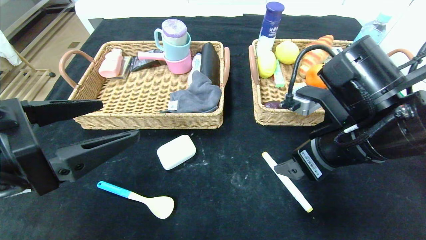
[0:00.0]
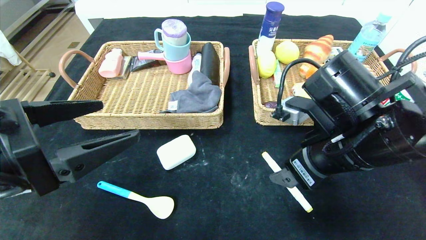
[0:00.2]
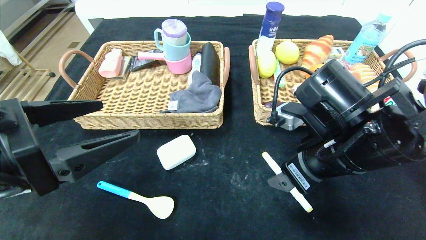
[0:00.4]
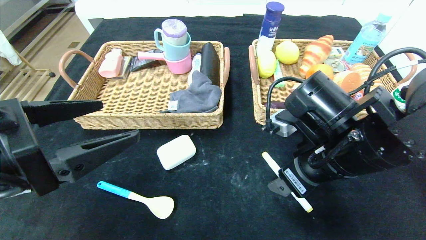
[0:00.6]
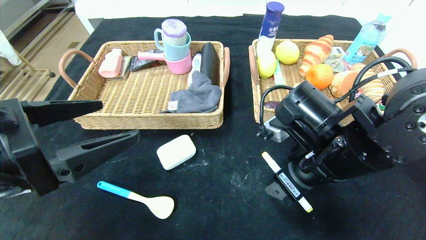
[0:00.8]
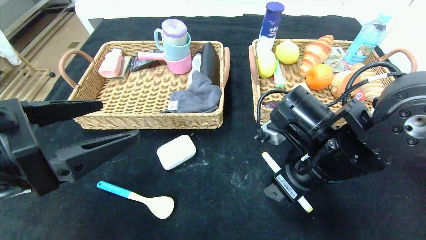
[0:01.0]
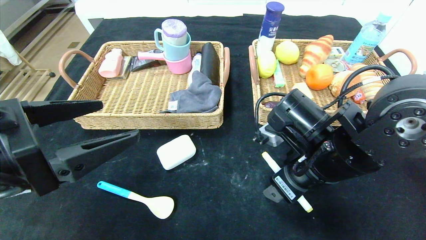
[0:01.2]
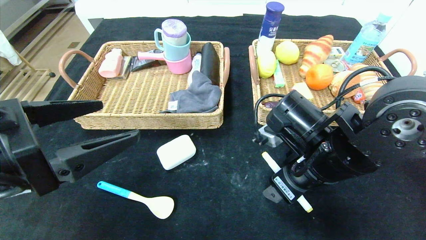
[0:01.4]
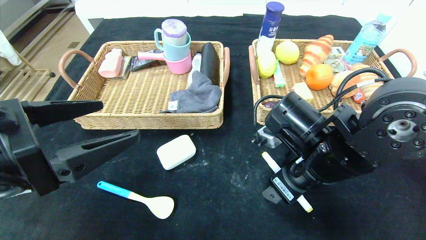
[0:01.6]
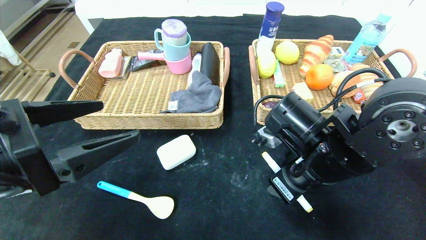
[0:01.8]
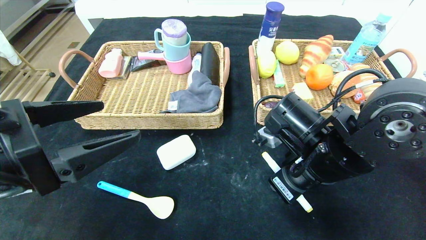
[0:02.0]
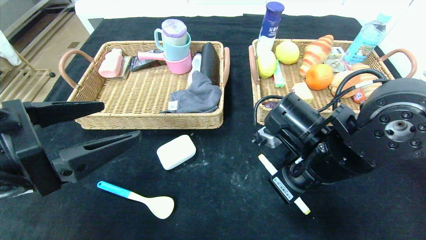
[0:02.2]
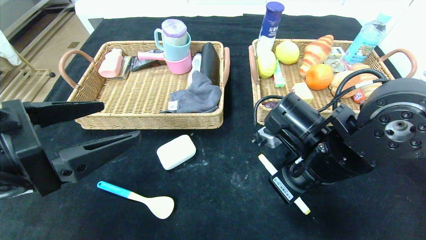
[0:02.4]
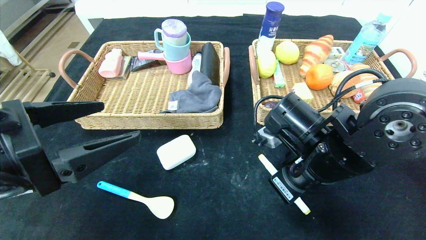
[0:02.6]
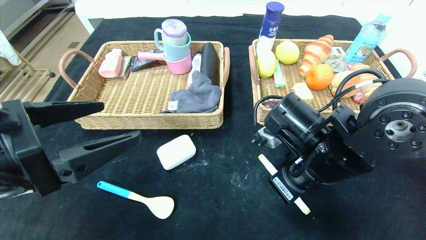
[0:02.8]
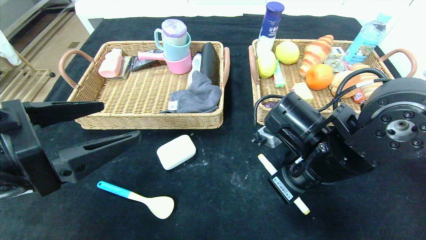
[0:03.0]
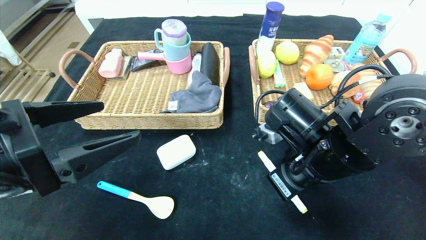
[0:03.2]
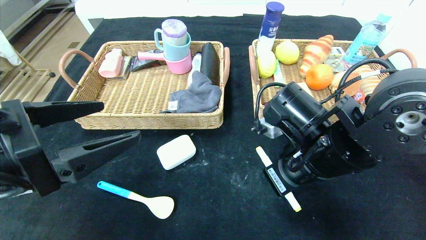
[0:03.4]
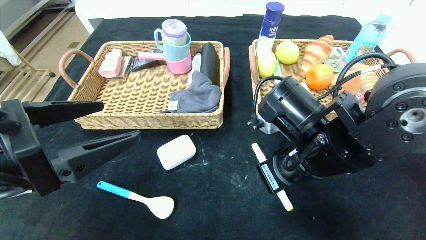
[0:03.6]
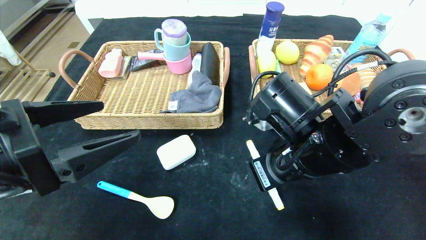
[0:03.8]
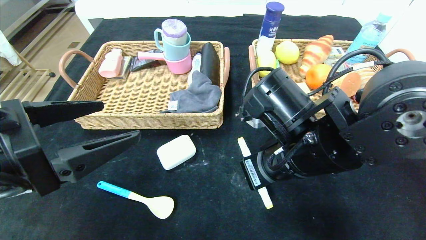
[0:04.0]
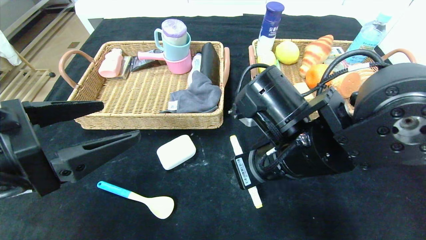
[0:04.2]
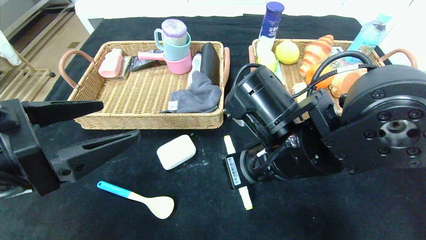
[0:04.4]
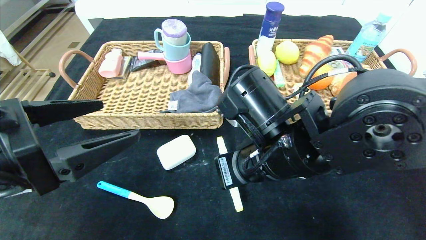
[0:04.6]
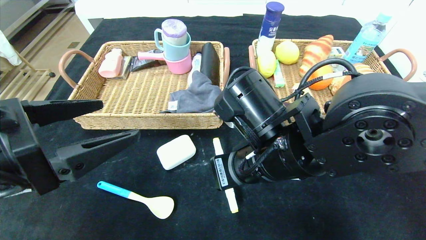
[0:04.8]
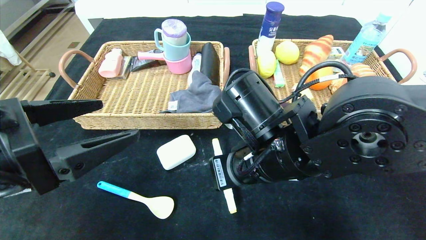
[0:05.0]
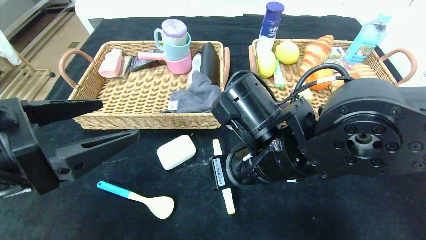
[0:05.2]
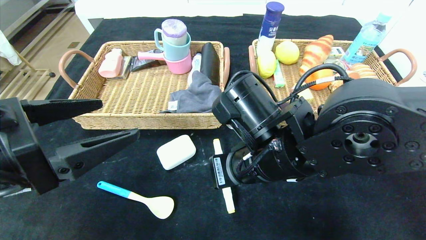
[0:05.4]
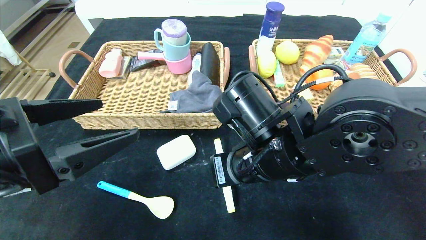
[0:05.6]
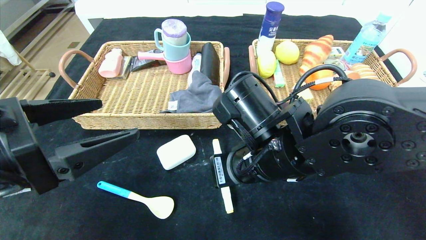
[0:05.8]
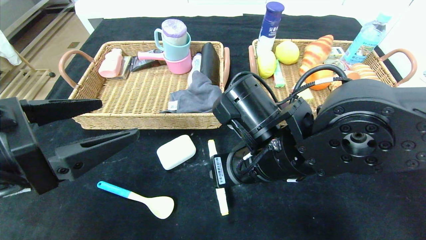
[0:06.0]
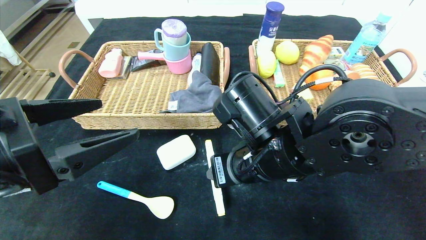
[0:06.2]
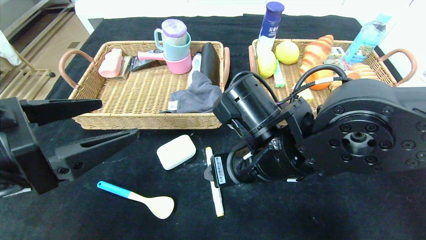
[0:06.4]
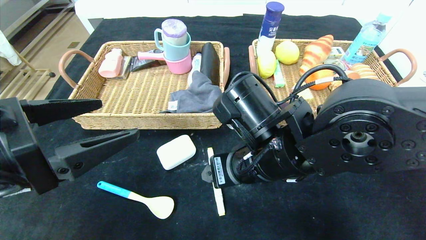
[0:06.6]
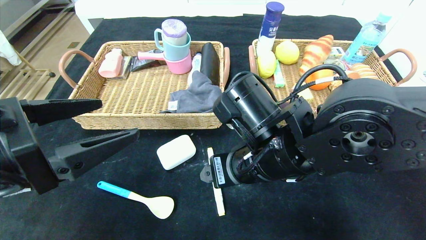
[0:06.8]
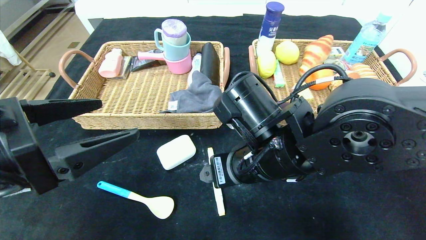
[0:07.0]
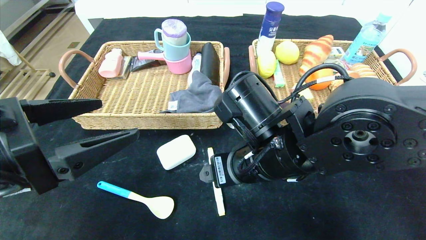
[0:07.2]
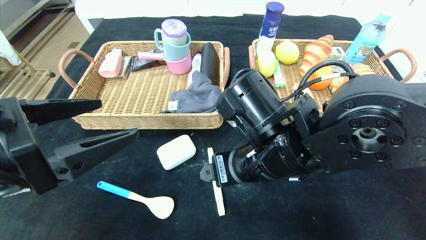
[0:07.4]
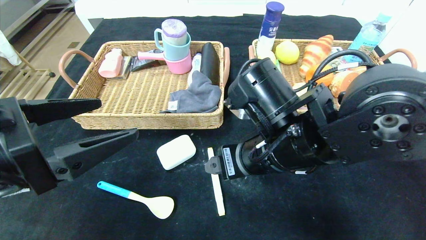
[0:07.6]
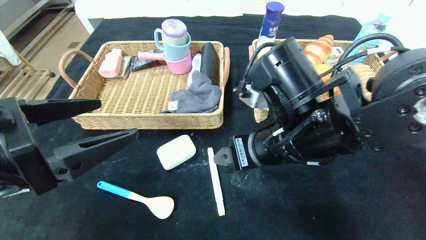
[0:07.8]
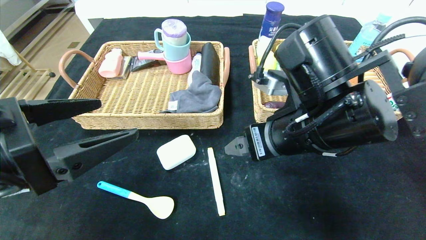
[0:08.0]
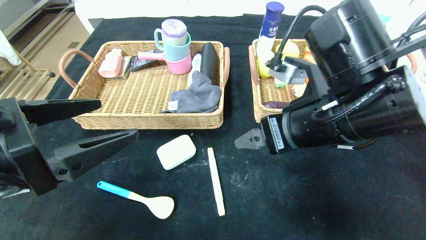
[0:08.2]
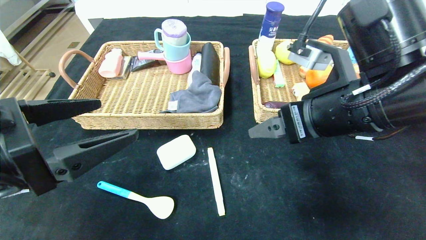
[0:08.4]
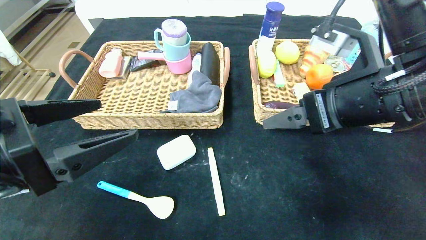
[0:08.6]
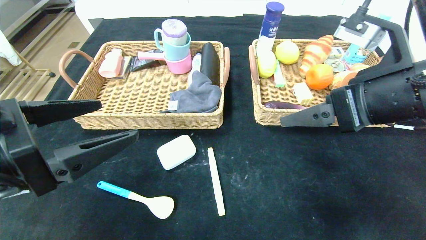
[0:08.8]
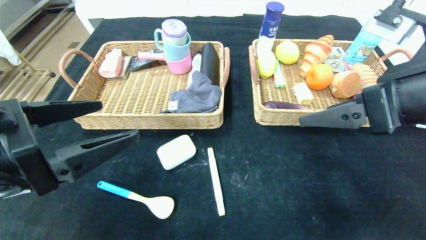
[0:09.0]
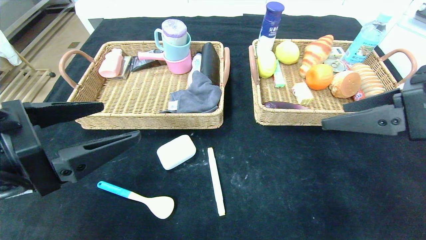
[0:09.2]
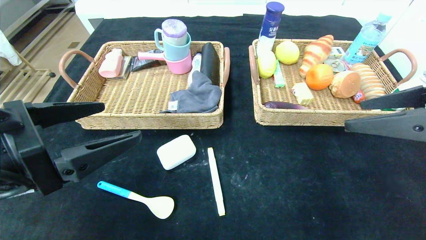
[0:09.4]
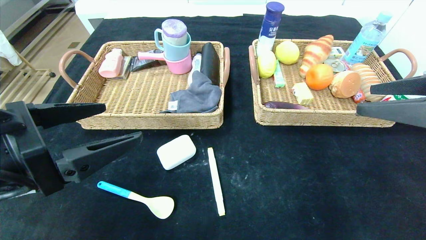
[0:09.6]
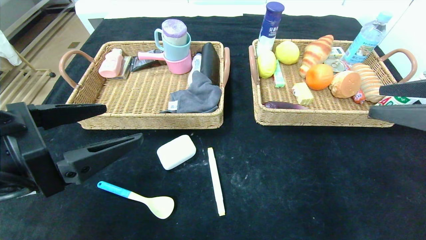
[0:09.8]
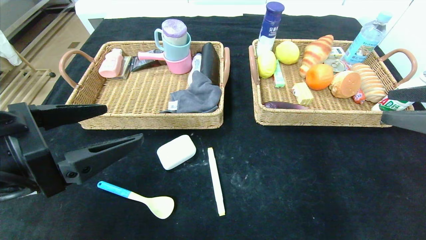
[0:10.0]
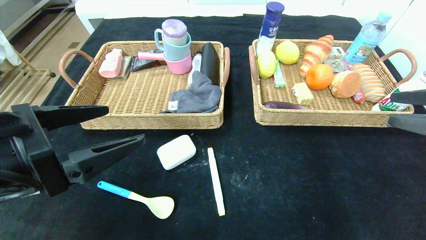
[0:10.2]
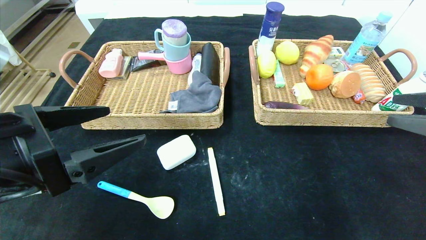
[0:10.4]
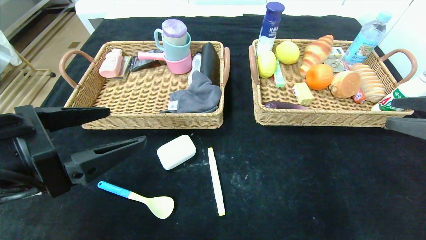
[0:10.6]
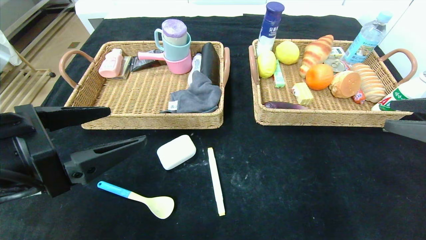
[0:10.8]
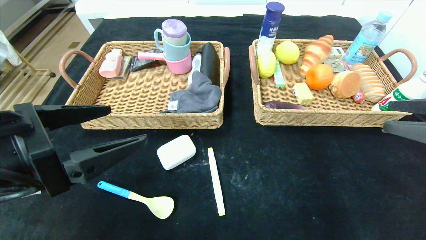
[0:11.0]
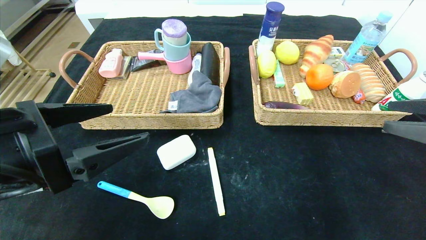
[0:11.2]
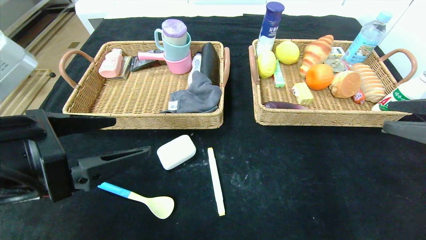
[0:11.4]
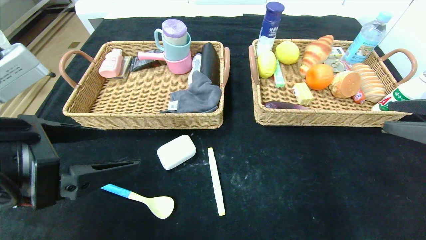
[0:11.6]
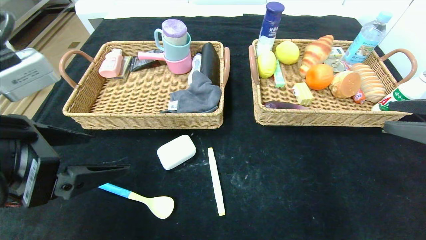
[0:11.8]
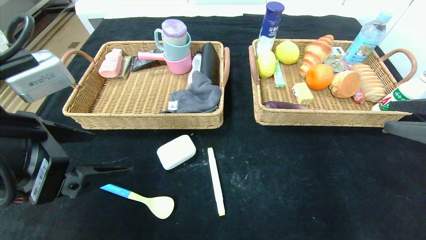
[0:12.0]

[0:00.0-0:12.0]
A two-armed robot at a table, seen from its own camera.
Step, 0:00.0 to 0:06.6: Place the yellow marker in the center of the table.
0:00.0 to 0:01.6: The right gripper heads downward, covering approximately 5 cm.
0:01.6 to 0:03.0: The right gripper closes up.
0:03.0 to 0:04.4: The right gripper travels to the left by approximately 5 cm.
0:04.4 to 0:06.0: The right gripper opens.
0:06.0 to 0:07.6: The right gripper opens its fingers.
0:07.6 to 0:09.0: The right gripper travels to the right and upward by about 20 cm.
0:09.0 to 0:10.4: The right gripper is displaced to the right by approximately 10 cm.

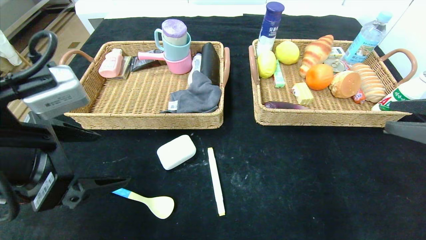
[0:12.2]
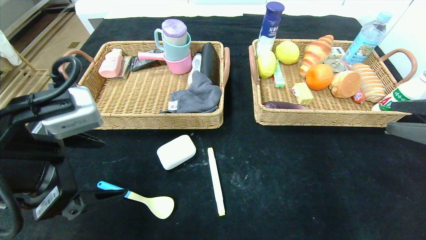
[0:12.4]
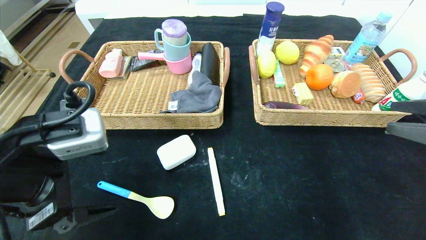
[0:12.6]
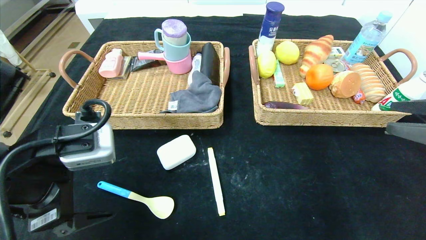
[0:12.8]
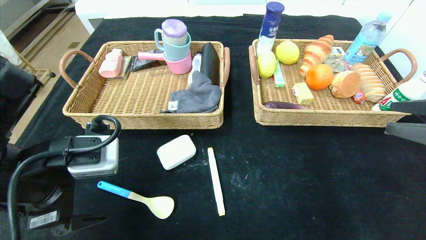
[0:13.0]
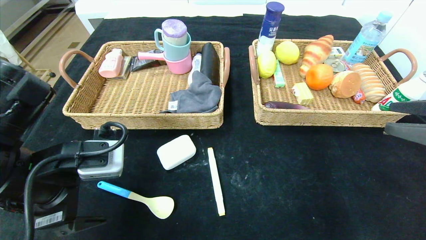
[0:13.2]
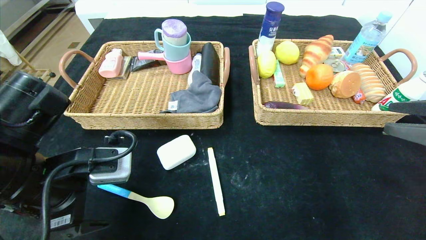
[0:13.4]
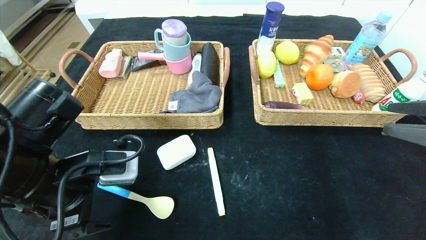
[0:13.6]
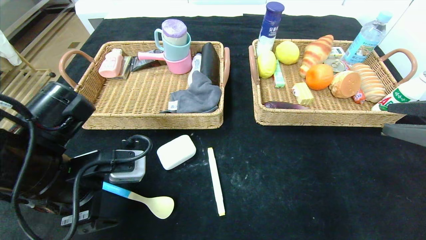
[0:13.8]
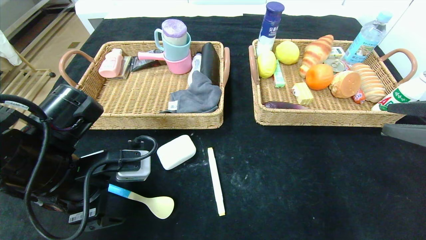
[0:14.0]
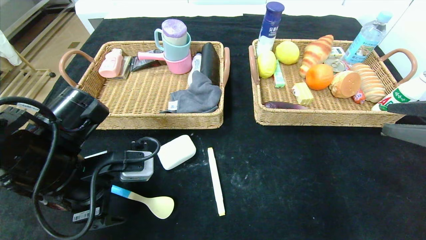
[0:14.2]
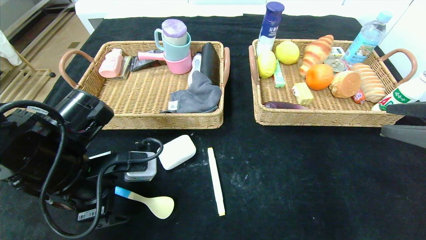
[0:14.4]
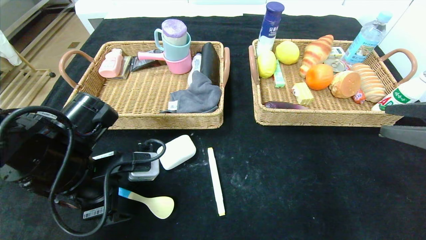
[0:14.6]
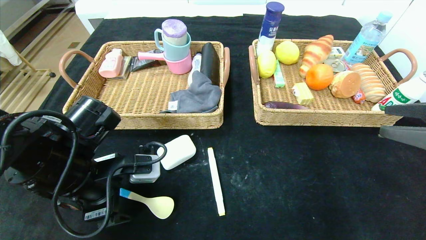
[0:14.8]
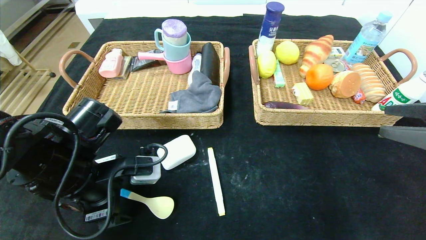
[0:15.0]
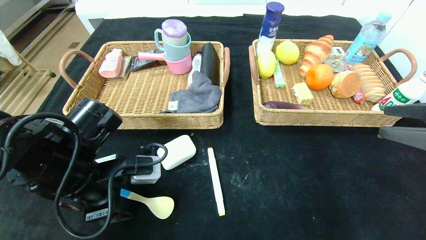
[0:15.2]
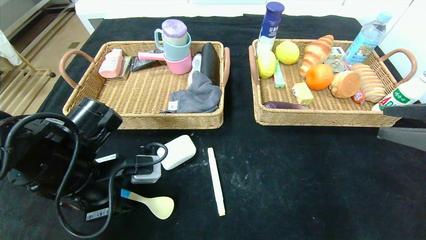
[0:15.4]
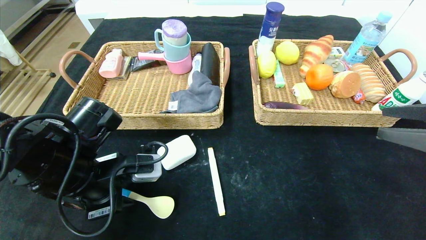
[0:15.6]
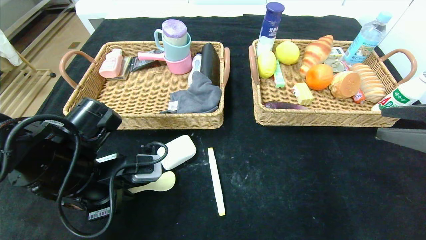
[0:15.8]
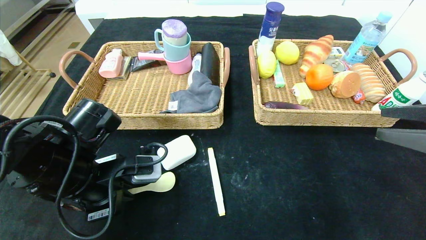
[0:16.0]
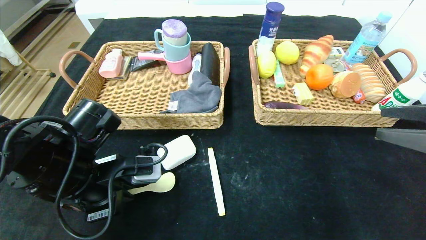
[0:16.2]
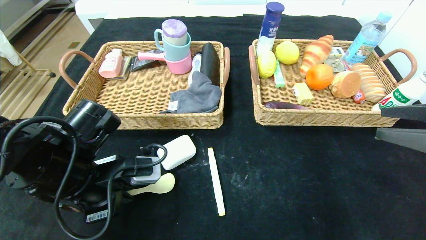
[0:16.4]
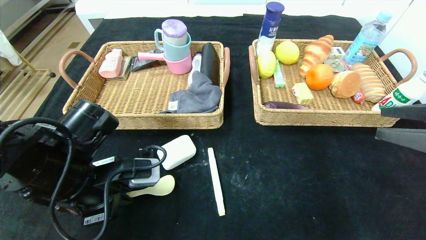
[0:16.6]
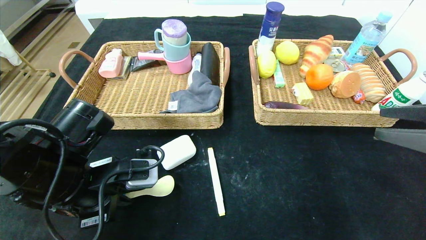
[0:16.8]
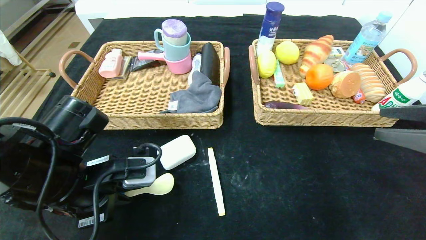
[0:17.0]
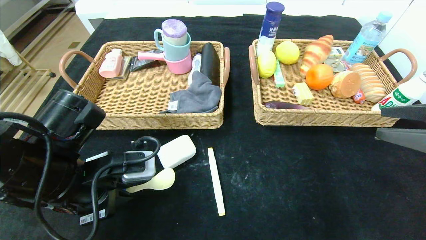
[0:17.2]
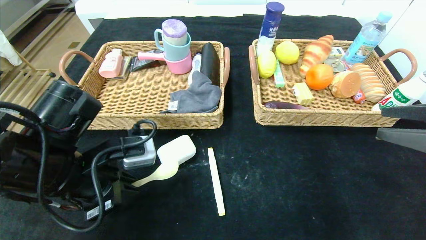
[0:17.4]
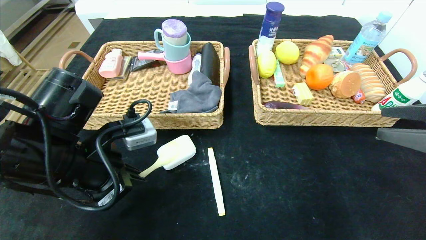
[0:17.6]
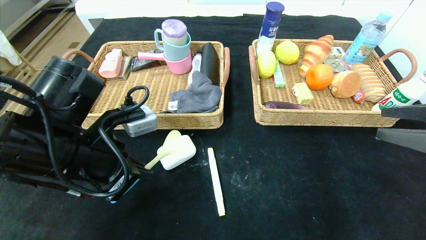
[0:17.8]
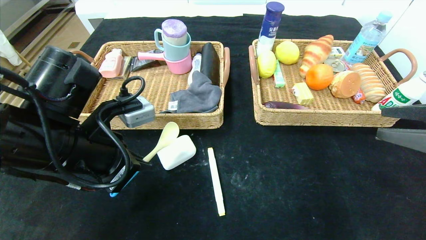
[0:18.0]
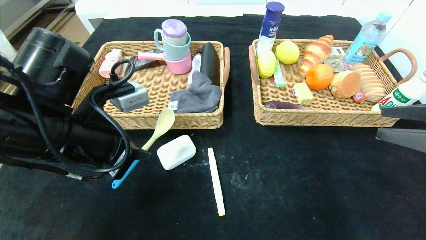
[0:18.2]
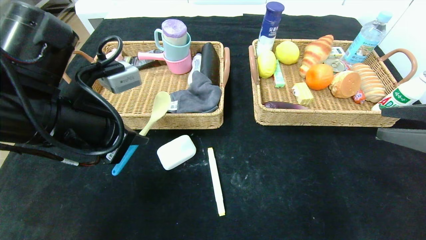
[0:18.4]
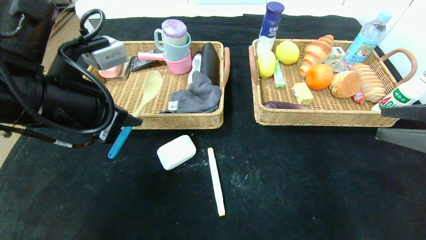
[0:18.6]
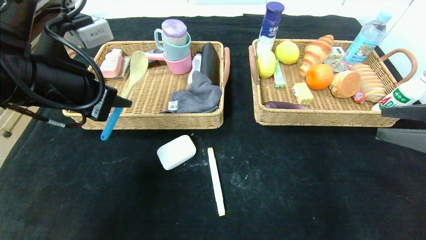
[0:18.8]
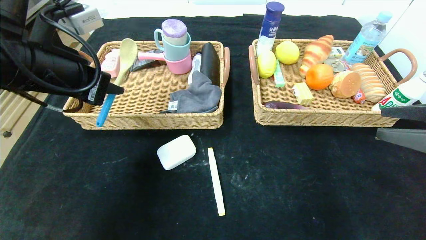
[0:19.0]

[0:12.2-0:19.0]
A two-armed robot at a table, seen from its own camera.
0:12.2 to 0:13.6: The left gripper is displaced downward by about 5 cm.
0:13.6 to 0:15.0: The grippers make only small movements.
0:15.0 to 0:16.2: The left gripper closes.
0:17.6 to 0:19.0: The left gripper goes roughly 10 cm upward.
